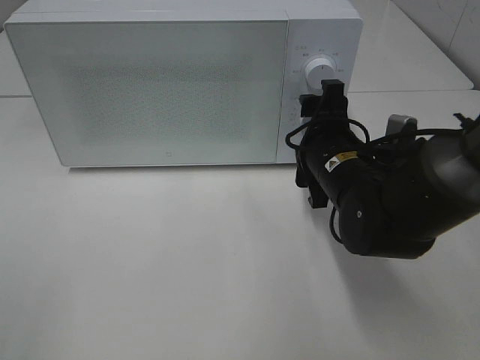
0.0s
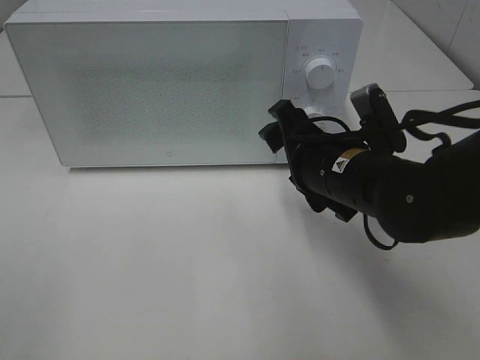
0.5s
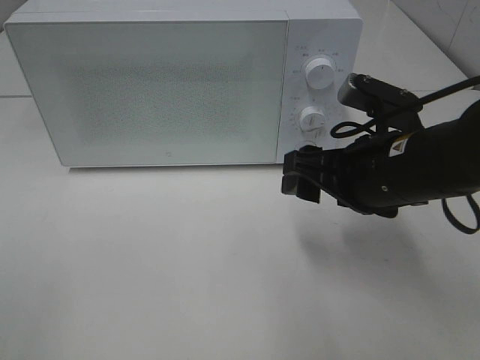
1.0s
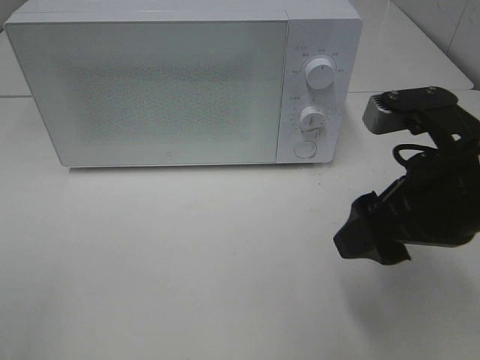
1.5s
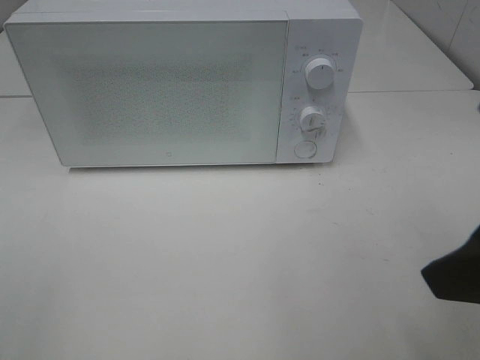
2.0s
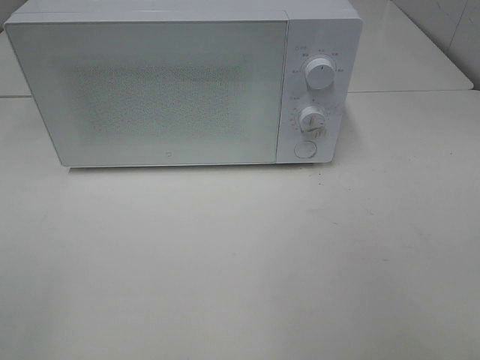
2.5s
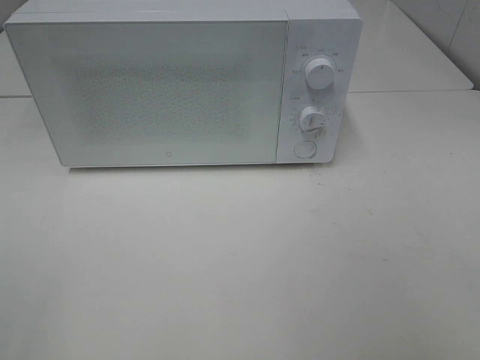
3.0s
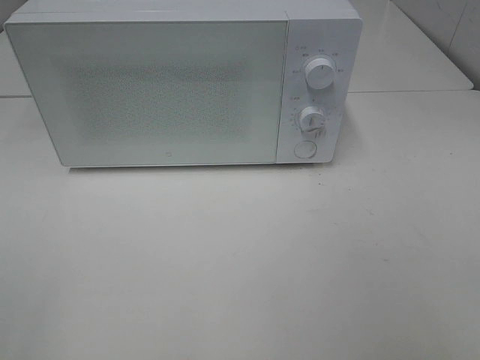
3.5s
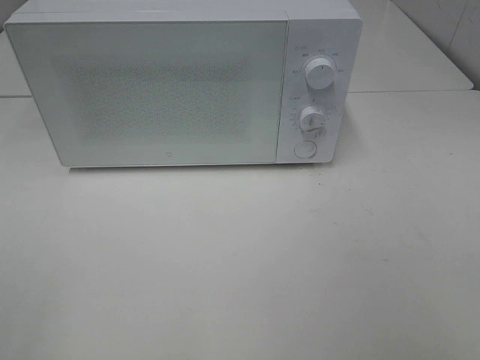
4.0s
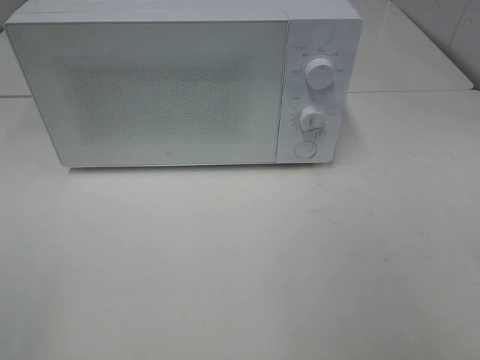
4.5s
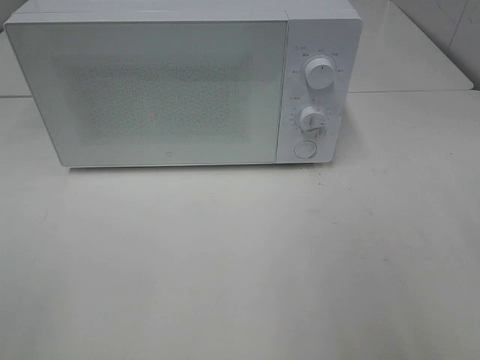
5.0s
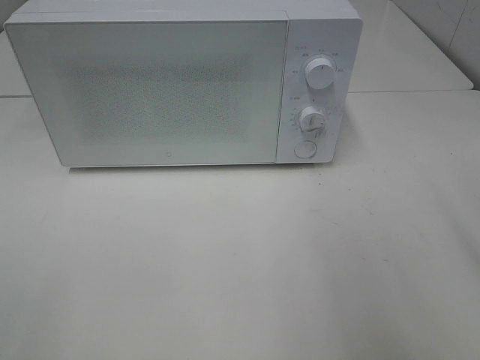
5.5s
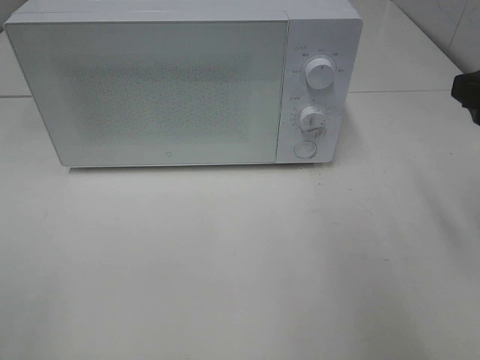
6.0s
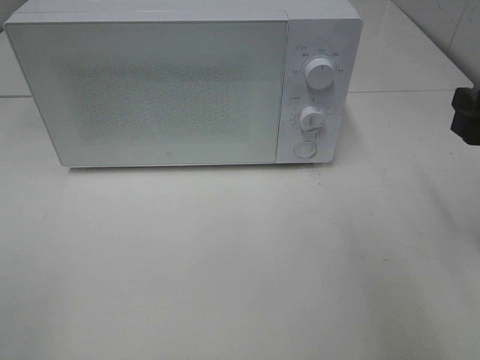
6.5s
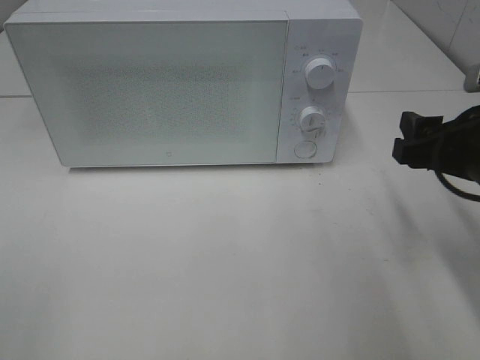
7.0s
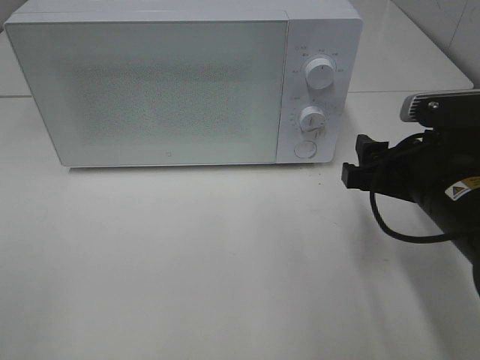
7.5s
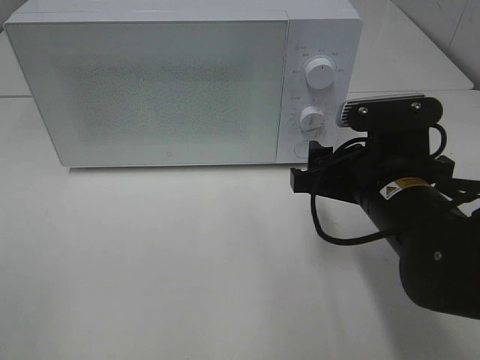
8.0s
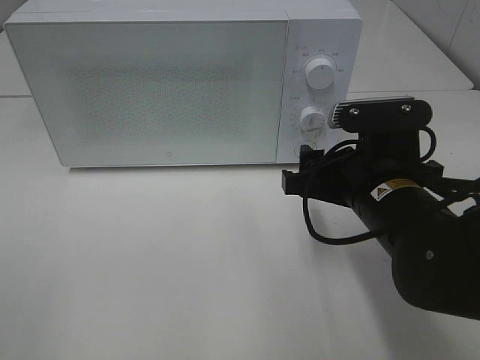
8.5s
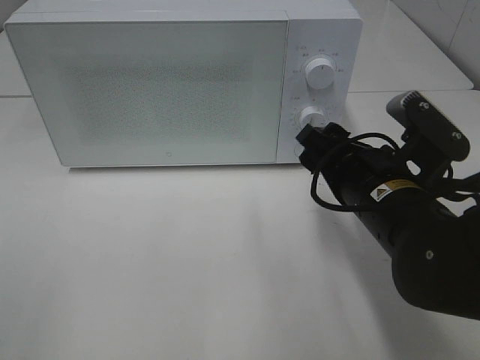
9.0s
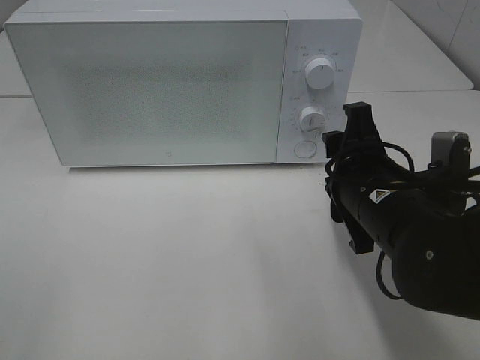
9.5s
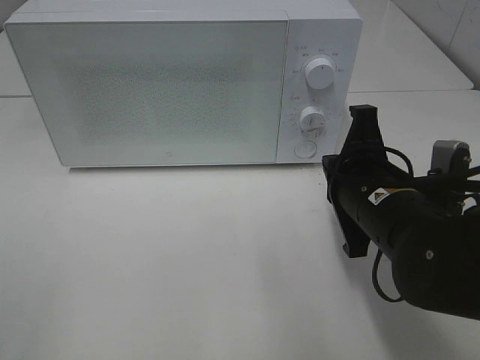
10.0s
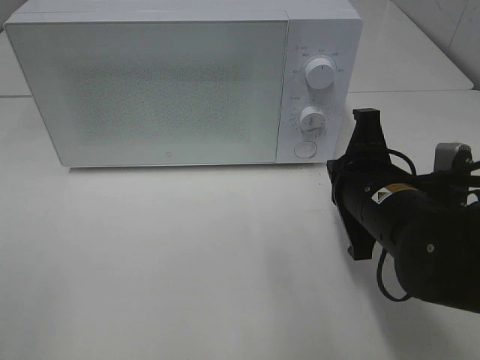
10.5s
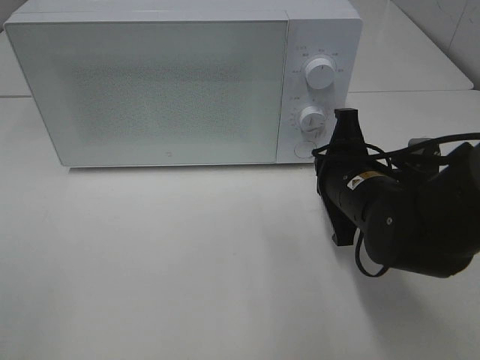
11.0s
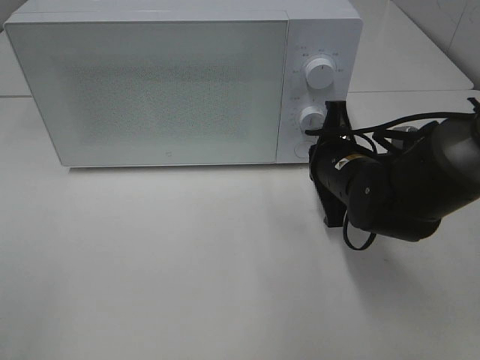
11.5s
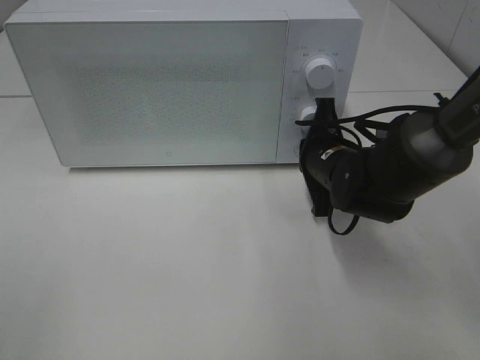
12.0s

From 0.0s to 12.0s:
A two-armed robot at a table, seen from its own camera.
Task of the whole recording: Heat Sandwich.
From 0.0s to 2.0s: The right gripper is displaced backward, upward and to the right by some 25 cm.
From 2.0s to 4.0s: The right gripper shifts some 15 cm backward and to the right.
From 4.0s to 6.0s: The right gripper is displaced forward by roughly 20 cm.
From 6.0s to 8.0s: The right gripper moves to the left and downward, roughly 15 cm.
From 8.0s to 10.0s: The right gripper closes up.
From 10.0s to 12.0s: The right gripper goes roughly 15 cm forward and downward.

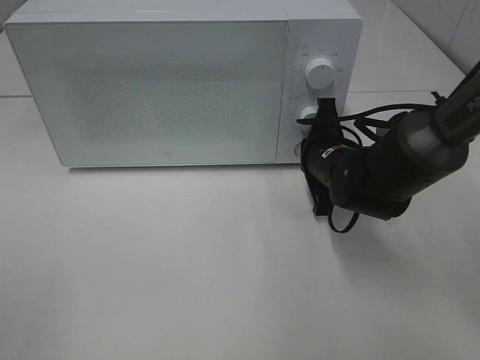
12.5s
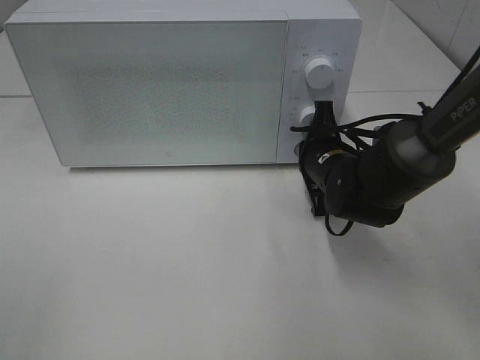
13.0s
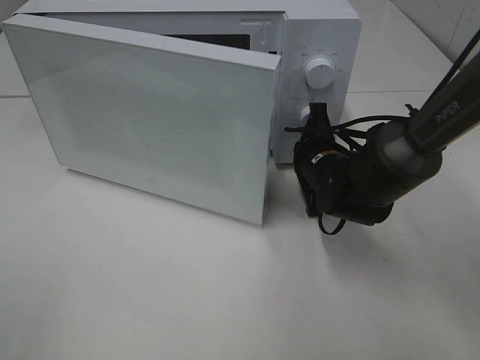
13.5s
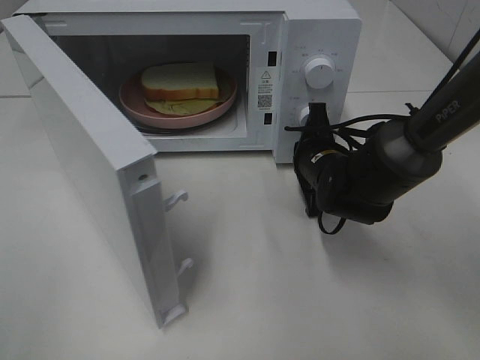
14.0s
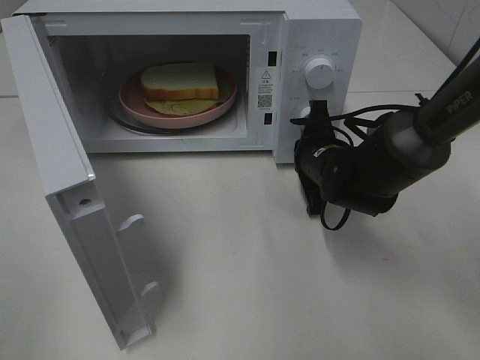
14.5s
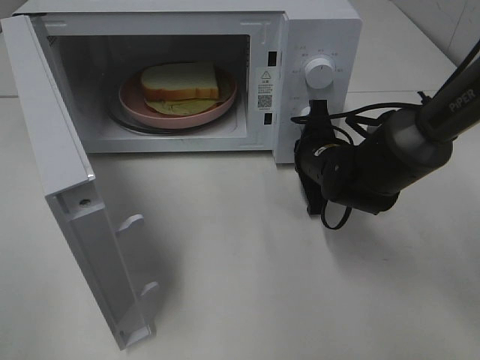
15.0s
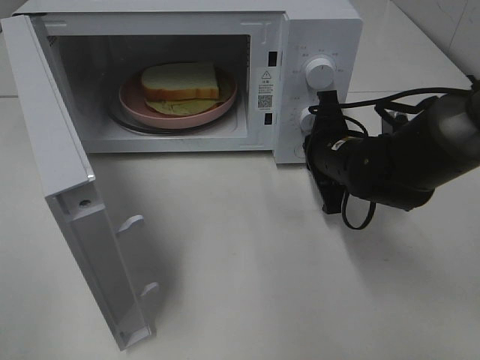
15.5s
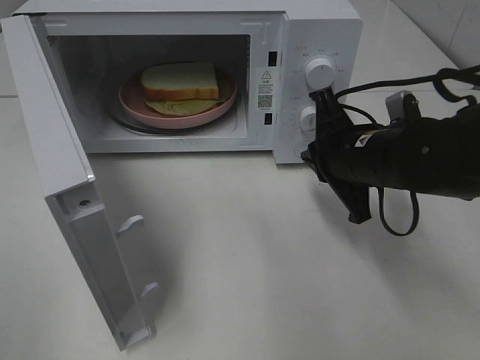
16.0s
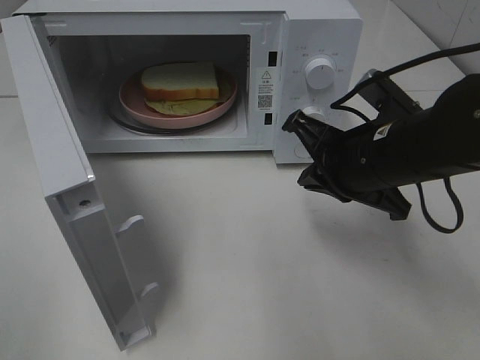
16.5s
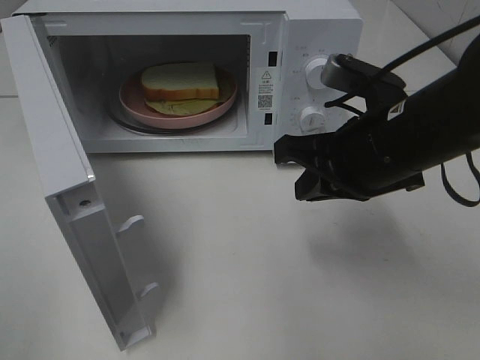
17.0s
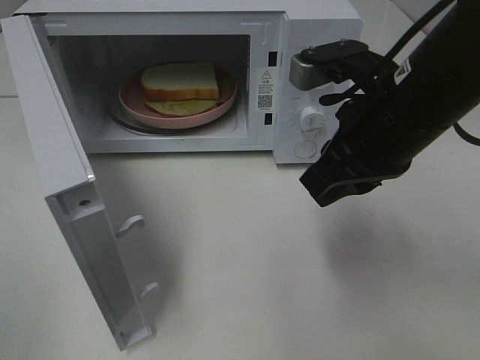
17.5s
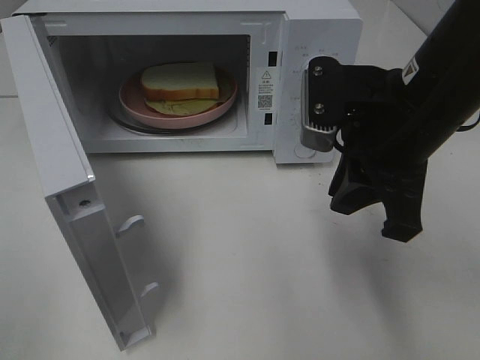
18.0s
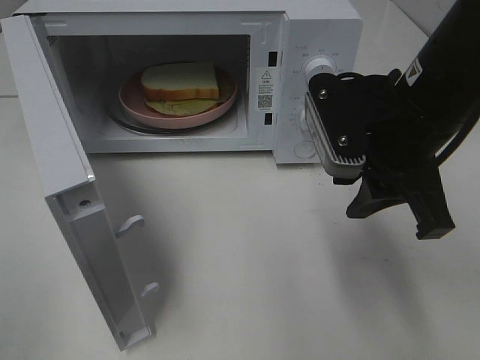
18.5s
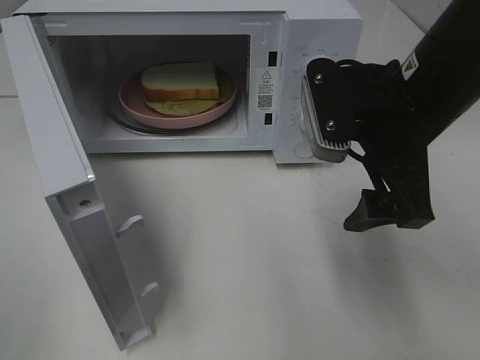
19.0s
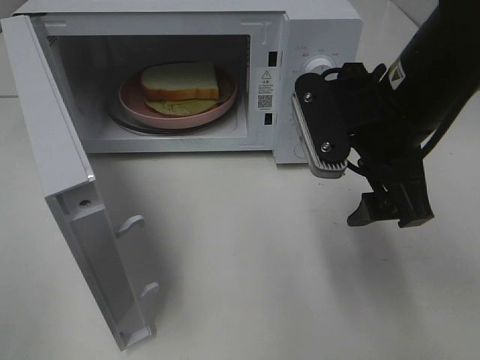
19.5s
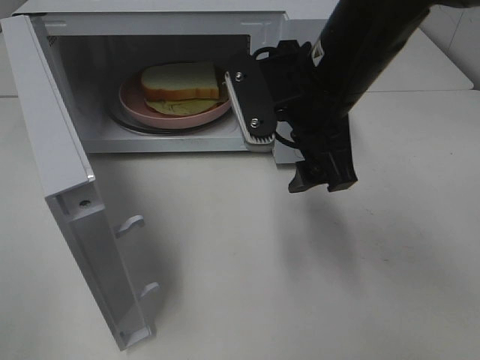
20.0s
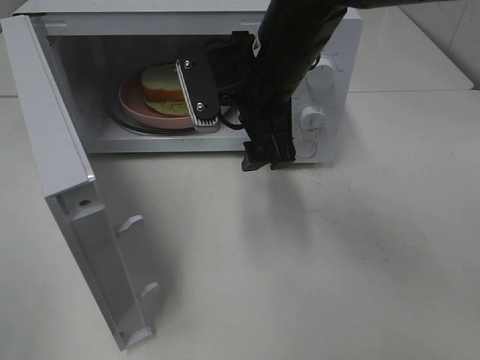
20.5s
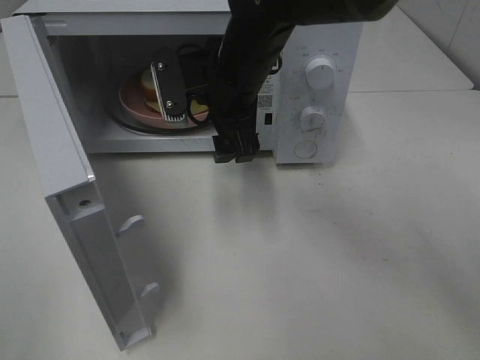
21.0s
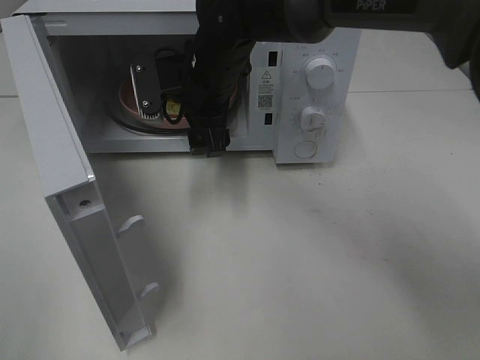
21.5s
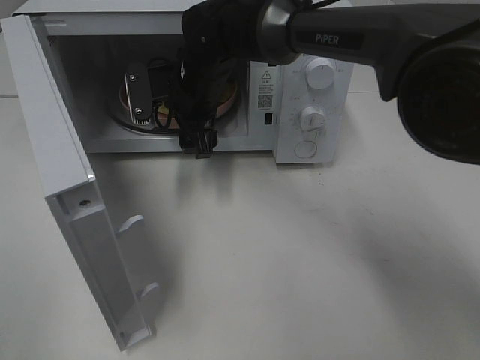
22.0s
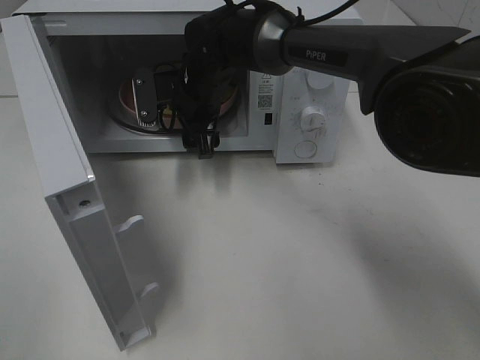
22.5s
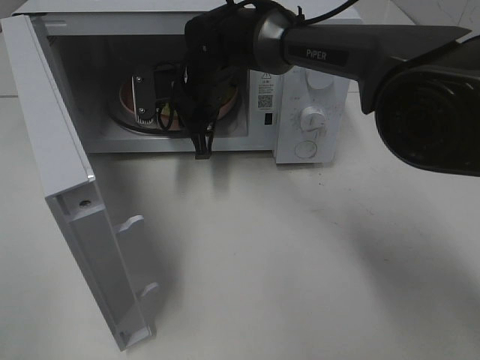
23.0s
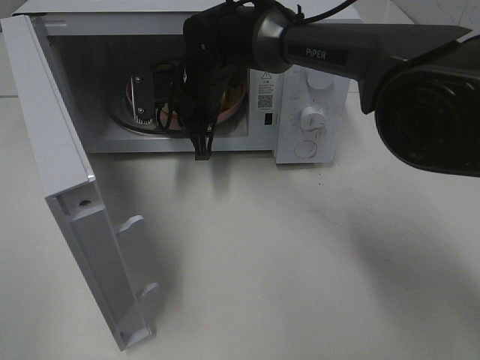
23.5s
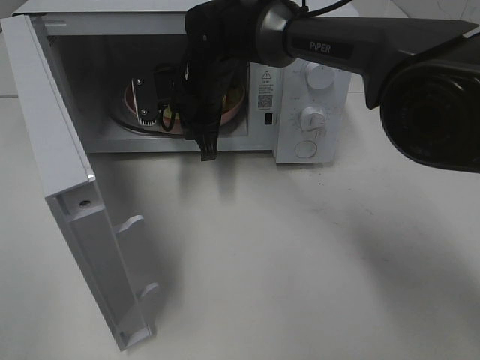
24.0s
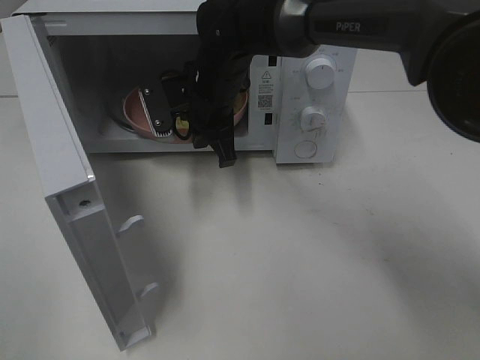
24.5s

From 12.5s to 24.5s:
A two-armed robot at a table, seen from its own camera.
Task of the whole recording: Heat Sandwich.
Step, from 12.5s to 15.5s: Right hand: press the switch.
Step, from 16.0s to 23.5s: Right hand: grab the plate with the sandwich.
From 14.5s to 16.5s: The right gripper is displaced backward and upward by about 15 cm.
From 16.5s to 18.5s: The right gripper goes roughly 5 cm upward, and opens its fingers.
From 18.5s to 20.5s: The right gripper moves to the left and forward, some 15 cm, and opens up.
From 20.5s to 22.5s: The right gripper shifts approximately 15 cm forward, downward and to the left.
From 22.5s to 24.5s: The right gripper closes its fingers.

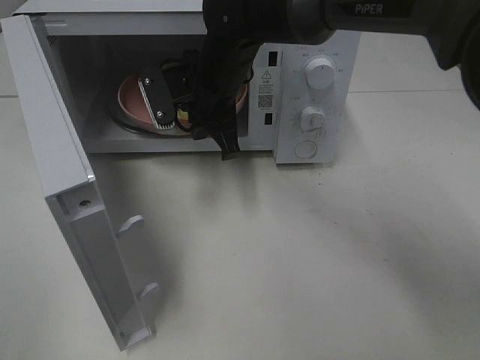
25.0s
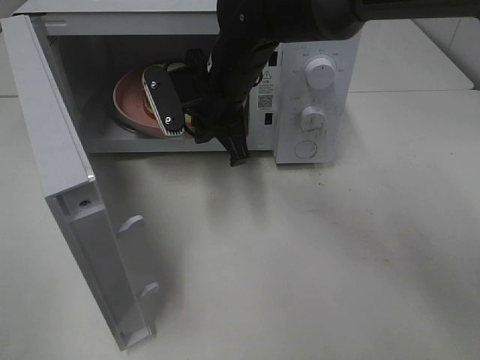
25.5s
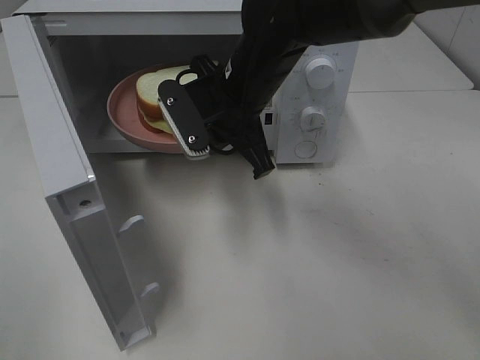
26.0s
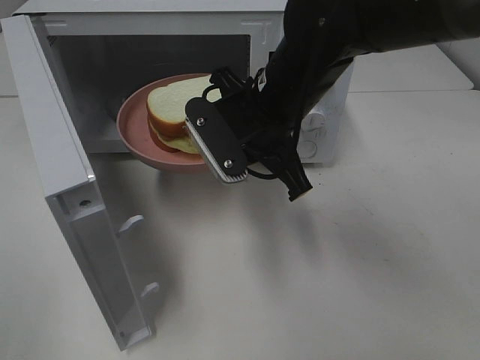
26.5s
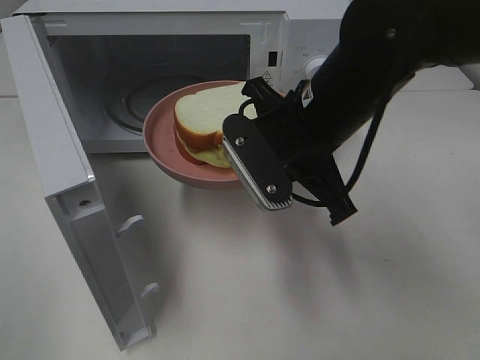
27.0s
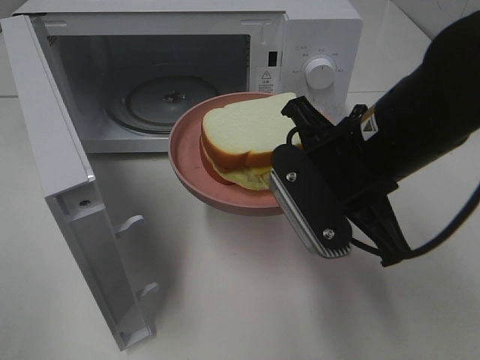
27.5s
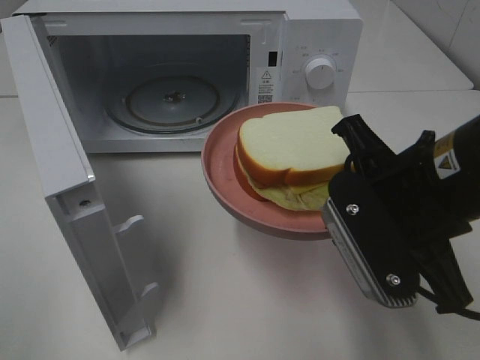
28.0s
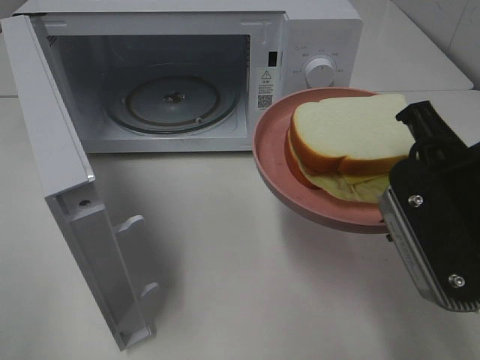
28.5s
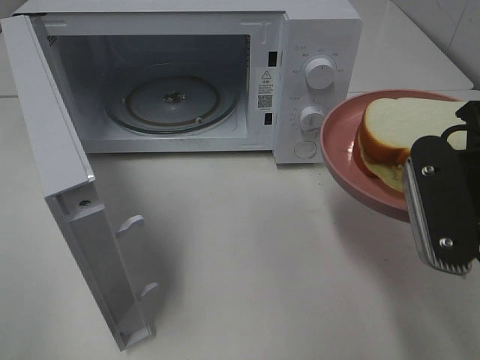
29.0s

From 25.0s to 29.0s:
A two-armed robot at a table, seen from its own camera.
Task of the whole recording: Heat Sandwich.
From 25.0s to 27.0s: The right gripper goes approximately 15 cm backward and to the right.
From 27.0s to 29.0s: The right gripper heads to the right and backward, covering approximately 15 cm.
